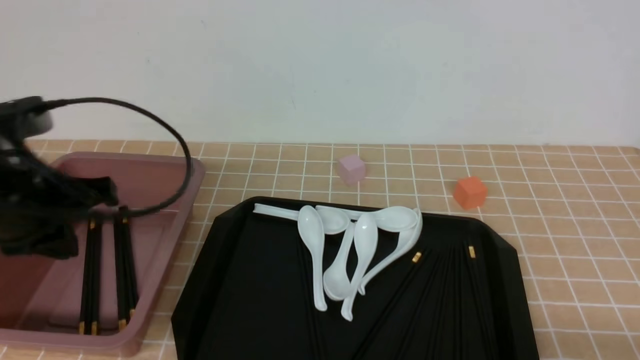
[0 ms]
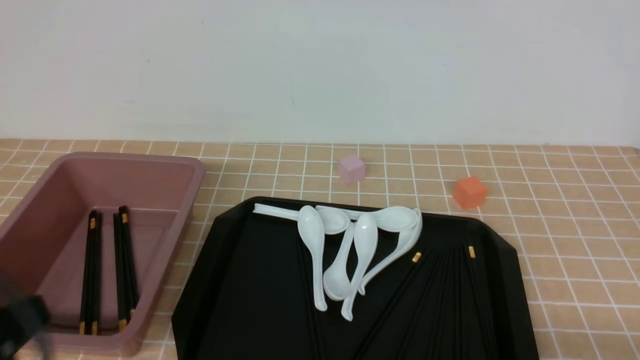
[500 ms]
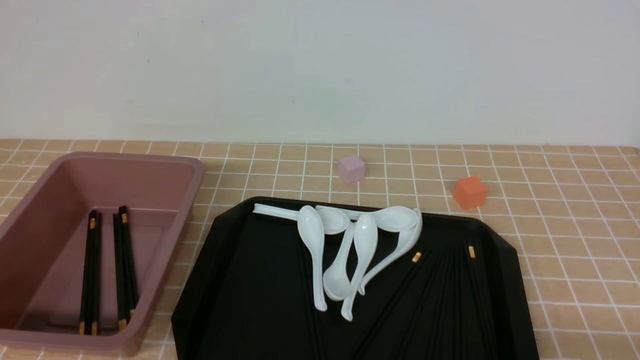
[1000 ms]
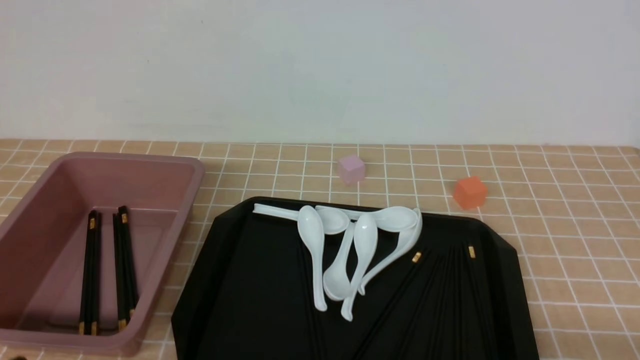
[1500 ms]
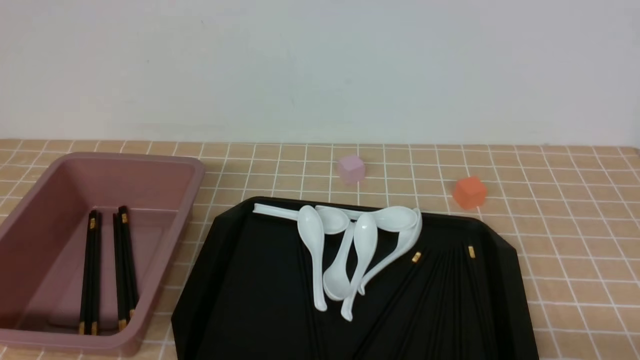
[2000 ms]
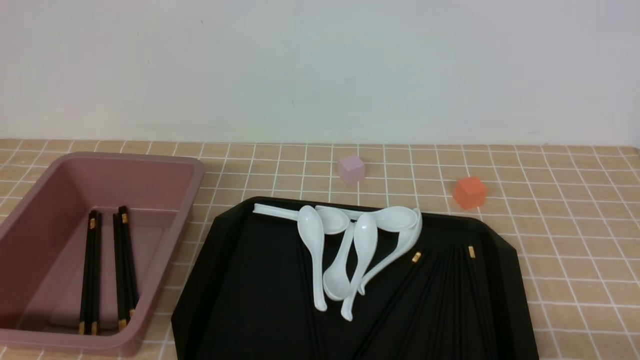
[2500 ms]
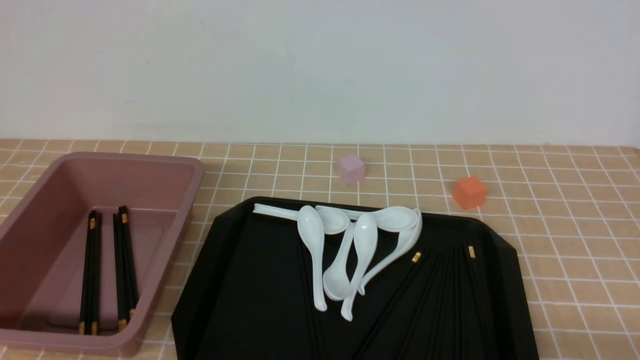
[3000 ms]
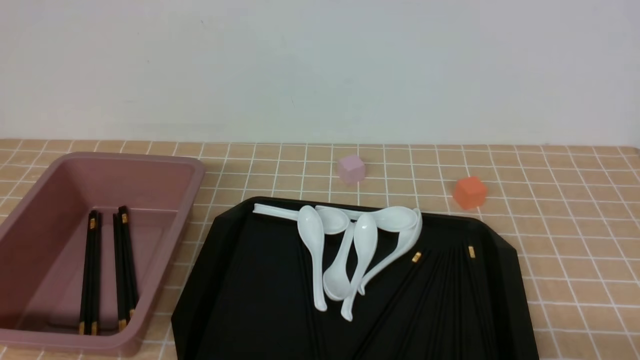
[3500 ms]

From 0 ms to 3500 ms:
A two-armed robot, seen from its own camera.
From 0 ms to 2000 ms: The left gripper heads backward and downward, covering about 25 cm.
From 2000 ms to 3500 ms: Both grippers stay put.

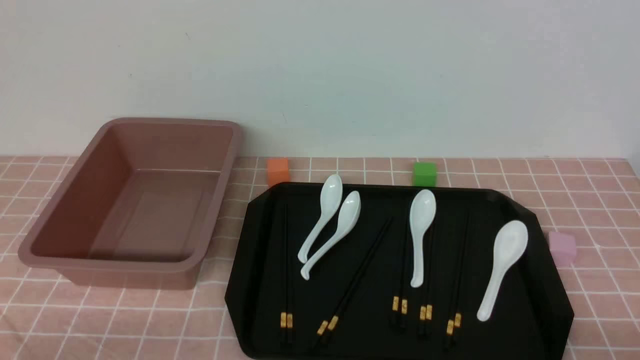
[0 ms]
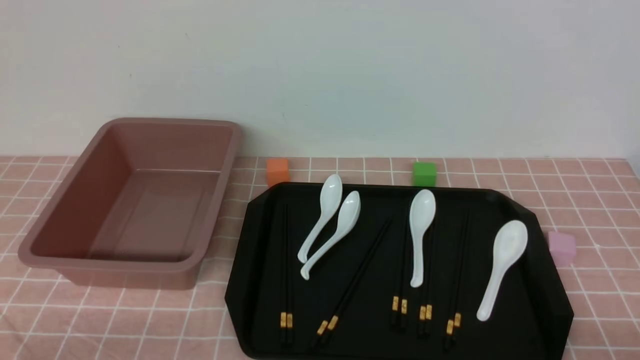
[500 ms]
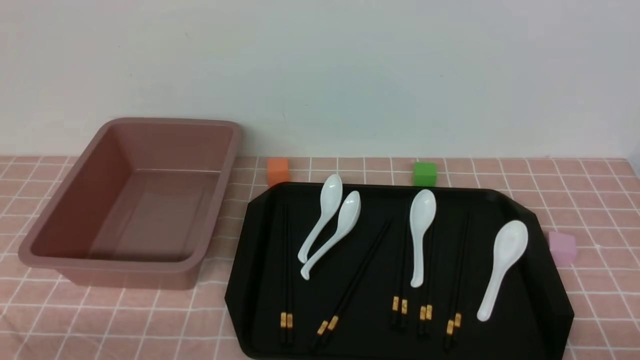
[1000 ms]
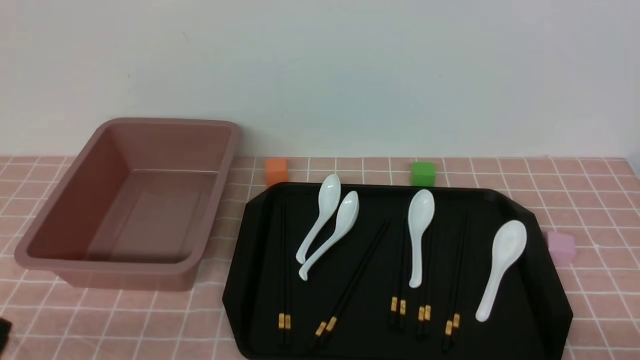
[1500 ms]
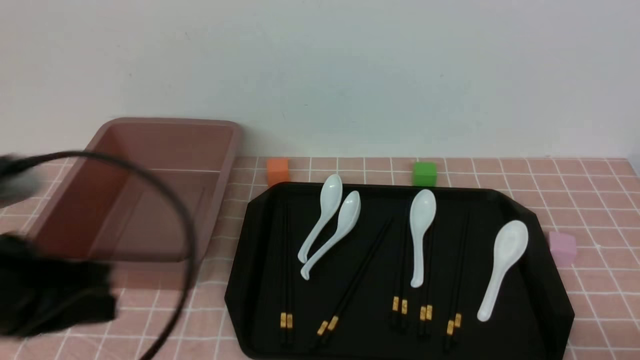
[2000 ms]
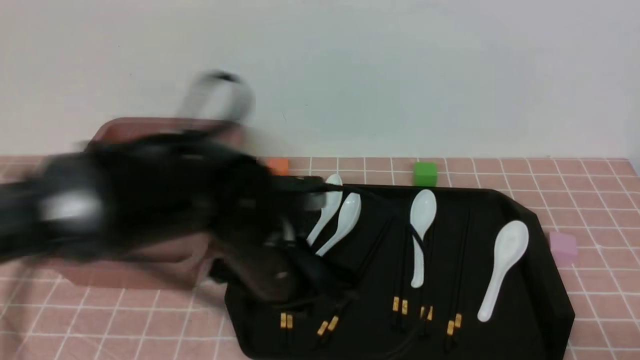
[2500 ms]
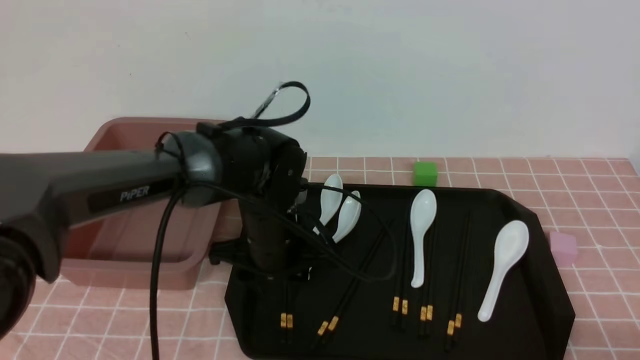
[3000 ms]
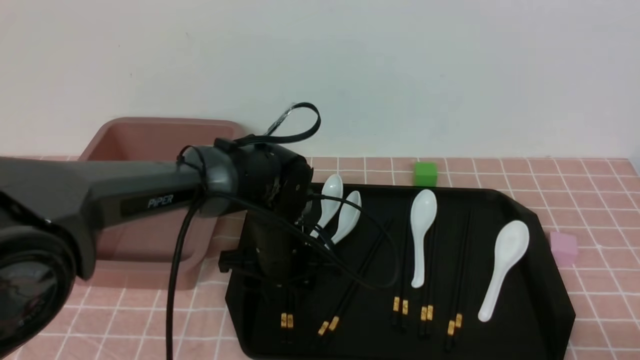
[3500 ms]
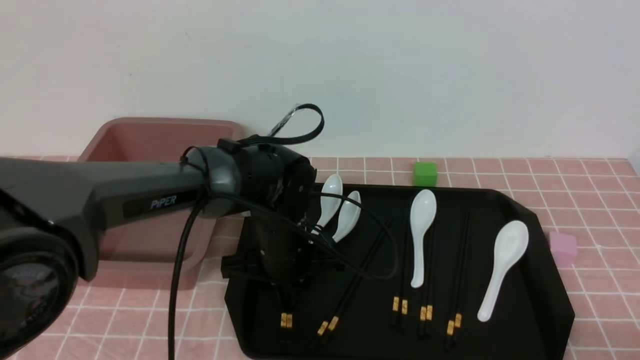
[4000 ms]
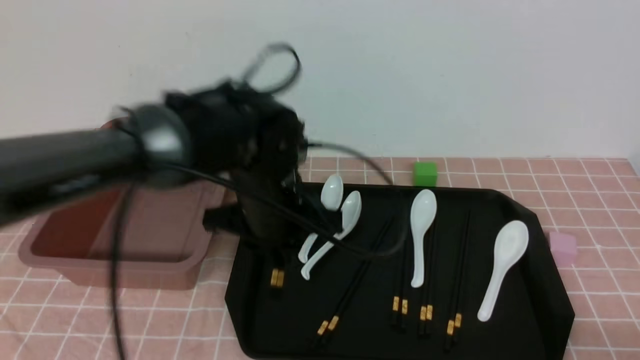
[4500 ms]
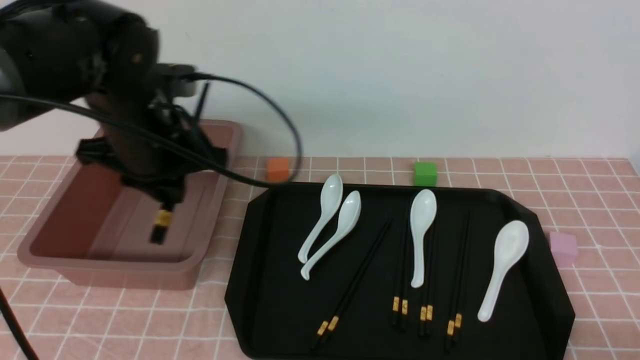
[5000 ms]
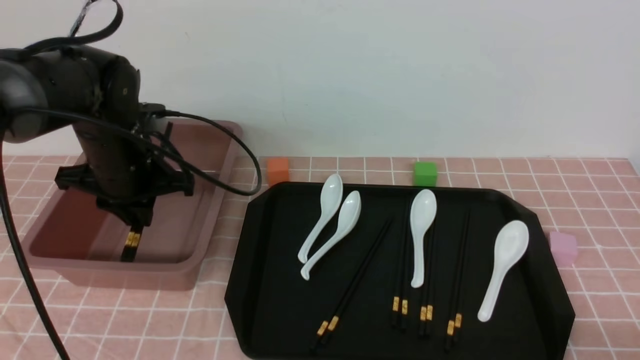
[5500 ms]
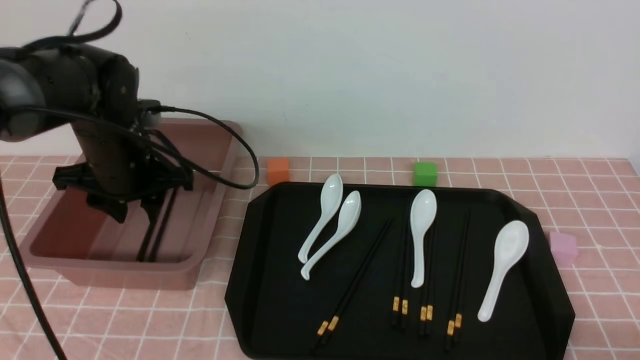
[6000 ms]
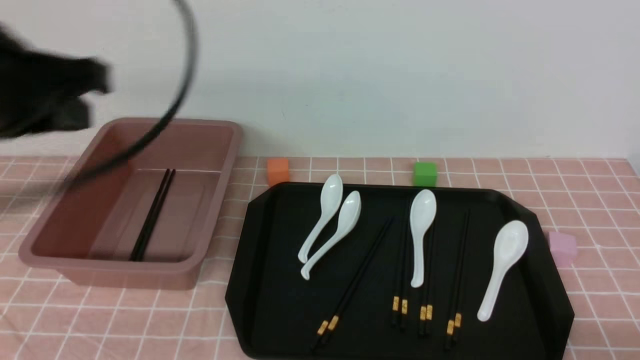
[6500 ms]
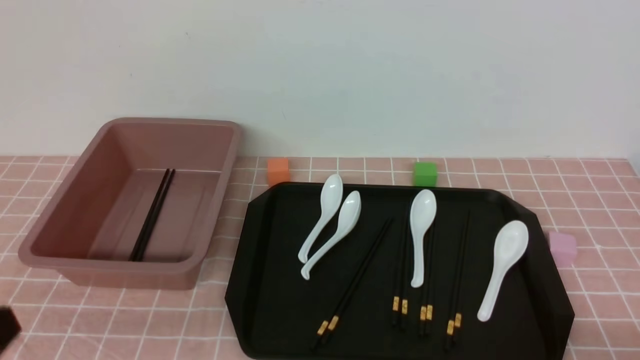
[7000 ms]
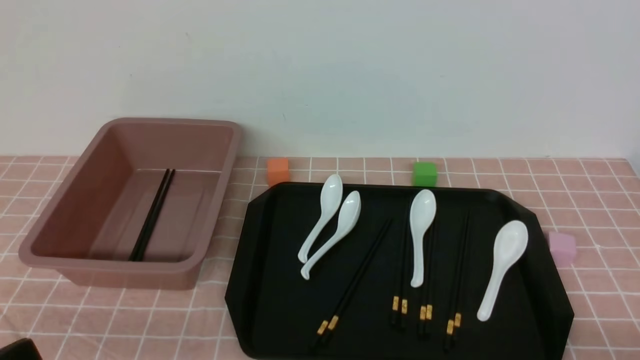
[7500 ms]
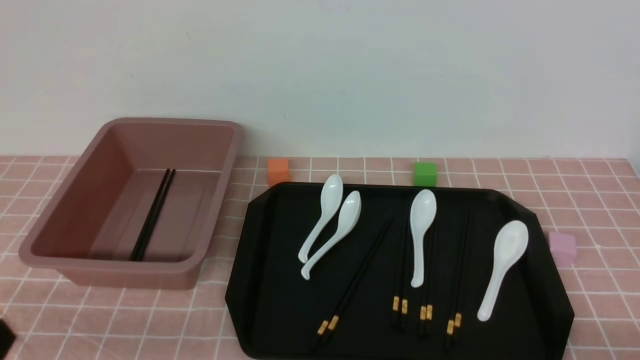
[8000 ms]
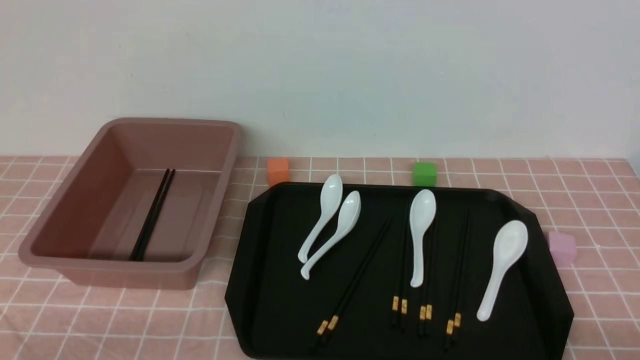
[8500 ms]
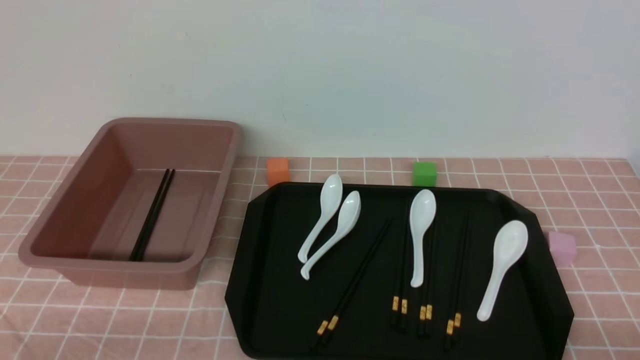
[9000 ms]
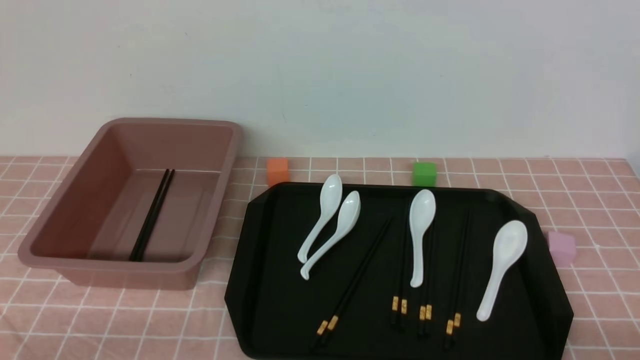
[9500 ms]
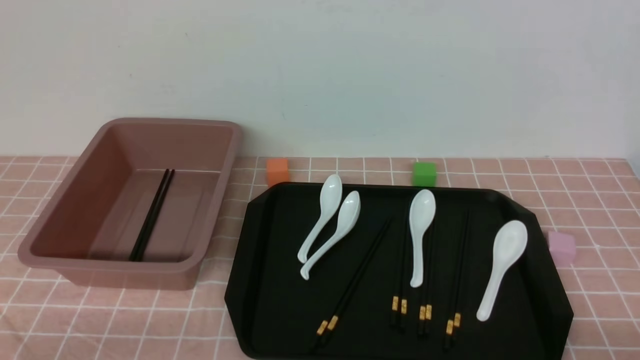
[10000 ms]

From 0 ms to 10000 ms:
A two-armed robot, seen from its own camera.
Step, from 0 ms to 4500 ms: use the left arm to grab a pair of chopsticks.
Step, from 5000 ms to 6000 ms: use the left arm to put the chopsticks into the lunch box.
From 0 ms to 2000 ms: The left gripper is displaced upward, forward and to the right by roughly 20 cm, and closes.
From 2000 ms to 4000 ms: The left gripper moves forward, to the right and downward, approximately 30 cm, and opens up.
From 4000 ms to 6000 ms: The left gripper is displaced to the left and upward by roughly 20 cm, and opens up.
From 6000 ms to 8000 ms: The left gripper goes roughly 30 cm backward, and closes its fingers.
From 8000 ms to 10000 ms: The left gripper travels downward by roughly 5 cm.
